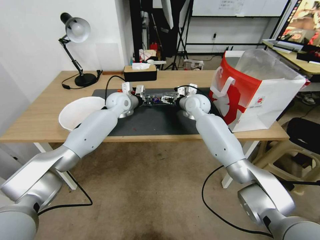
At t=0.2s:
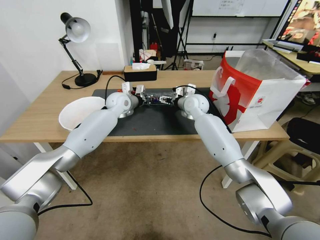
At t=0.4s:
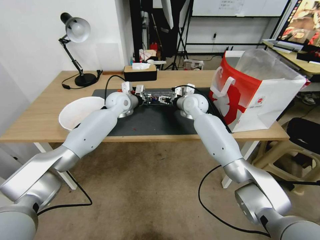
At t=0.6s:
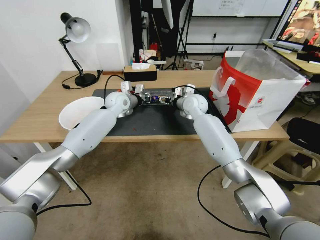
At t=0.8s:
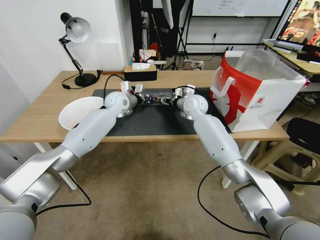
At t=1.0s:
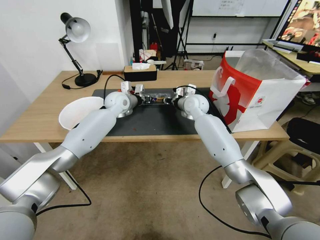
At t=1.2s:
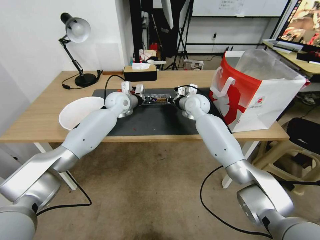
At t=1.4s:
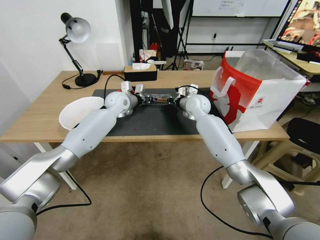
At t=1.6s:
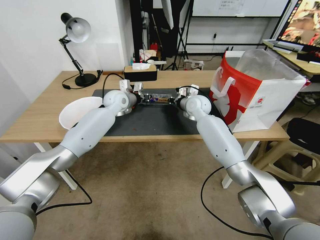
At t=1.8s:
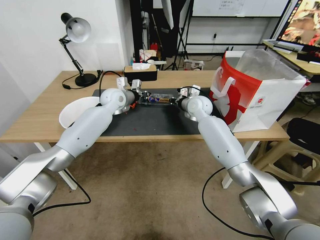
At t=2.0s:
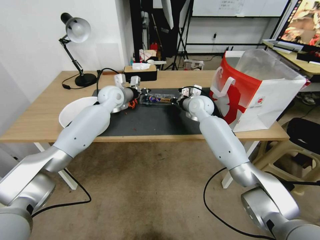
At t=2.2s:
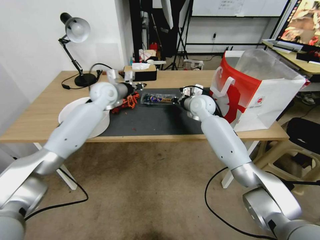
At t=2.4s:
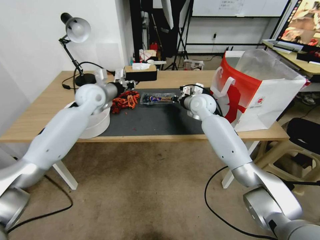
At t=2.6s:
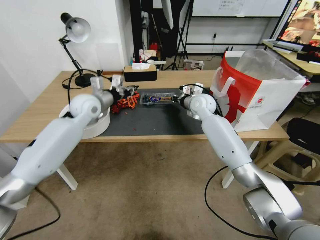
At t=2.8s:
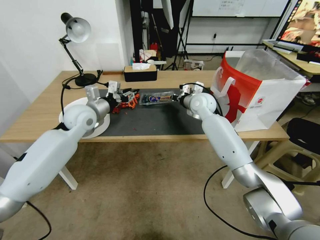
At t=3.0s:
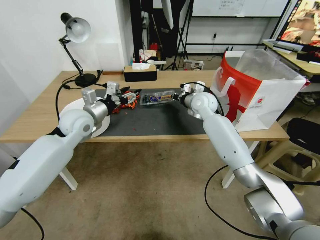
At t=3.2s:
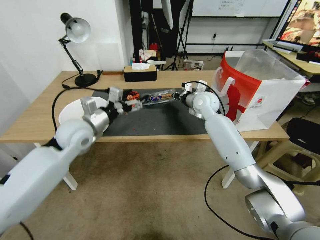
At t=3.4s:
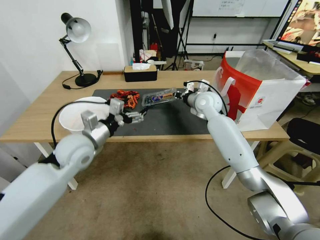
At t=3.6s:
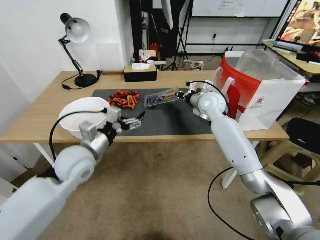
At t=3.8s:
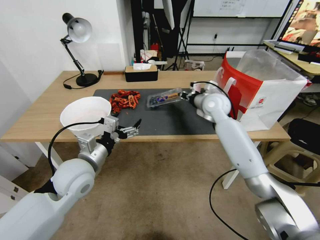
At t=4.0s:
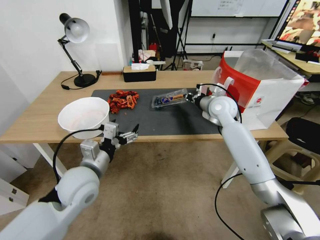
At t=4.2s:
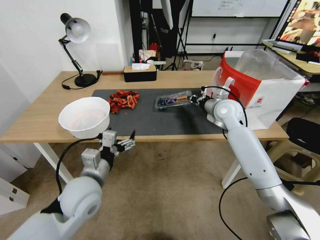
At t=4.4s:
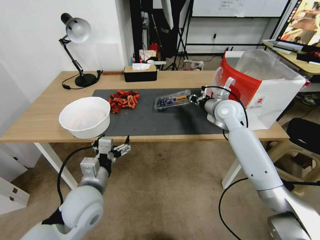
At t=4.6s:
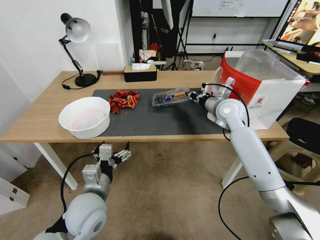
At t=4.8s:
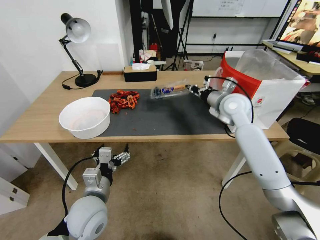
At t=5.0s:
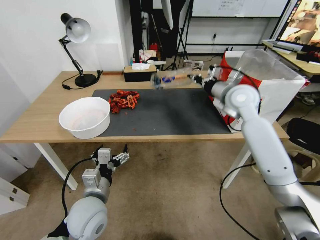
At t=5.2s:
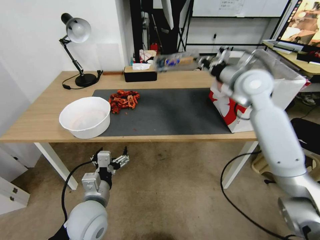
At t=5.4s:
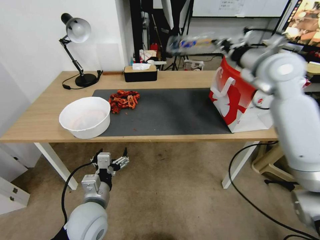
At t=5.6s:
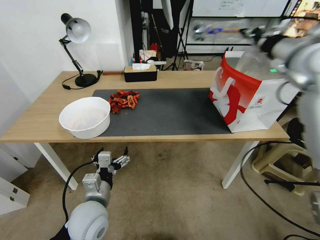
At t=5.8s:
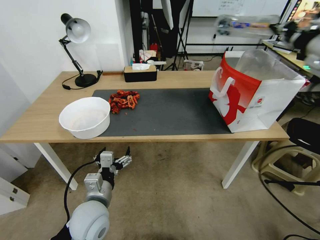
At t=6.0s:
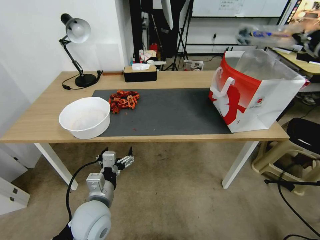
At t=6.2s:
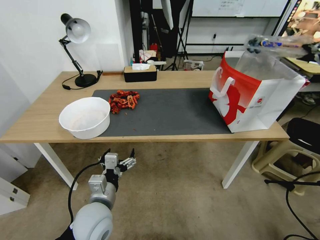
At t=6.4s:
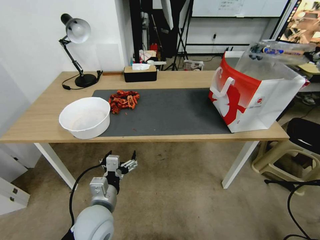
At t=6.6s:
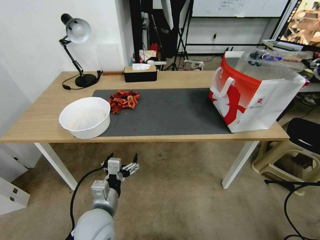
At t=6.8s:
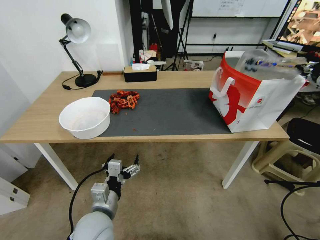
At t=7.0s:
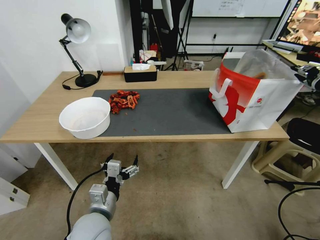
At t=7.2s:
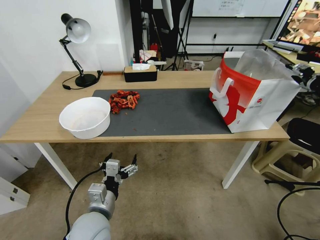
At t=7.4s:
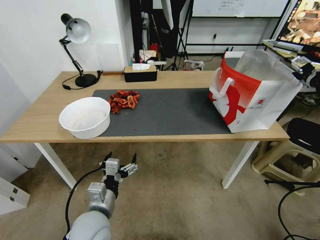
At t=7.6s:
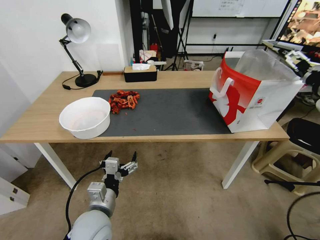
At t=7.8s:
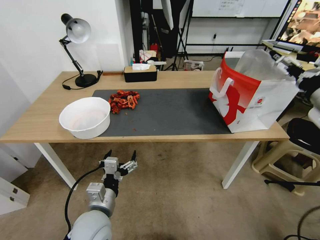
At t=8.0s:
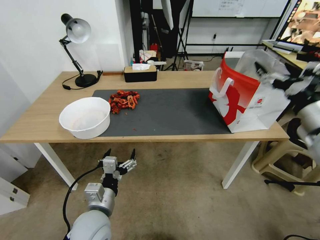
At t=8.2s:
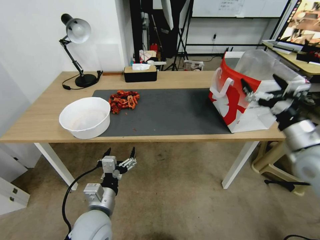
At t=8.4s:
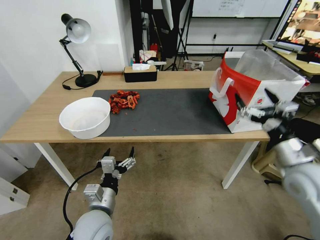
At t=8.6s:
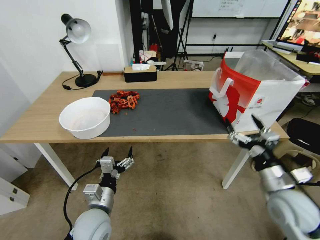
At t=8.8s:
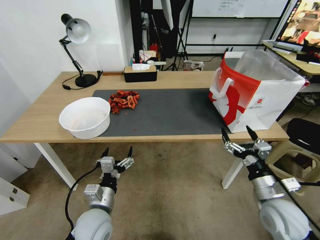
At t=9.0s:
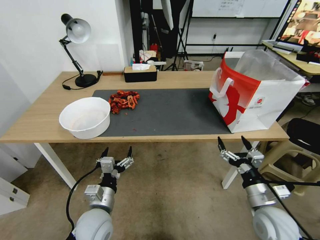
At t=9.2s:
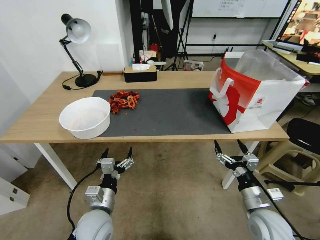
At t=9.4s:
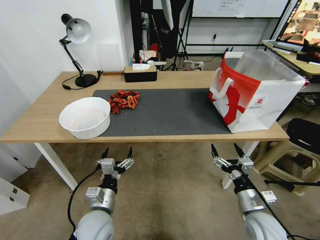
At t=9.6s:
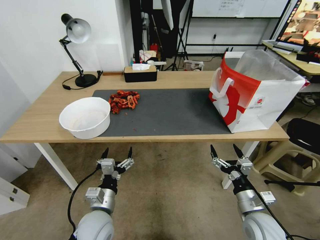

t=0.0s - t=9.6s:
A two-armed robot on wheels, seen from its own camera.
Task of the whole recording: Close the takeout container lid, then place the container into the takeout bag.
t=0.0s - t=1.6s: The right gripper closes.
t=1.6s - t=3.2s: The left gripper goes about 20 cm backward, and opens.
t=3.2s - t=4.8s: The right gripper is displaced to the right and backward by about 10 cm, while the left gripper goes about 20 cm backward and downward.
t=4.8s - t=6.4s: The right gripper heads to the right, upward and backward, covering about 30 cm.
t=6.4s - t=8.0s: The right gripper goes approximately 15 cm to the left, downward and backward, and opens.
t=8.0s - t=9.6s: The right gripper moves downward, roughly 30 cm.

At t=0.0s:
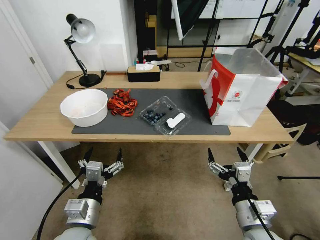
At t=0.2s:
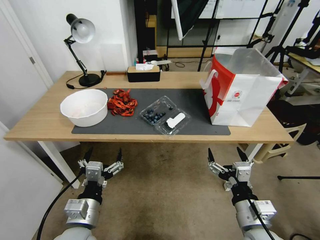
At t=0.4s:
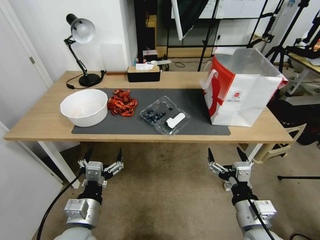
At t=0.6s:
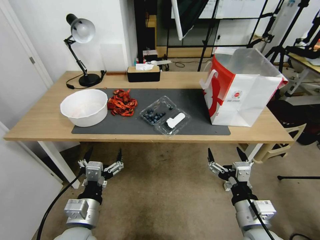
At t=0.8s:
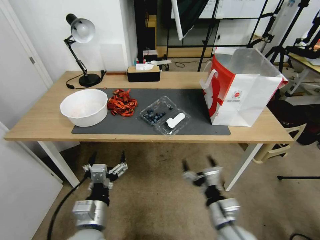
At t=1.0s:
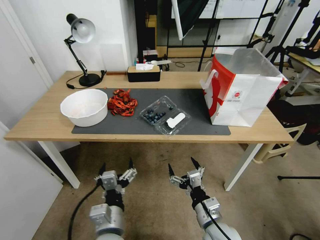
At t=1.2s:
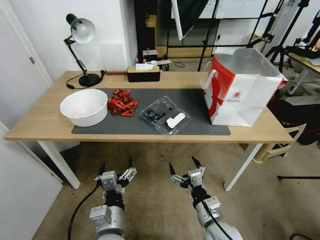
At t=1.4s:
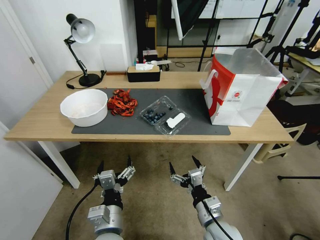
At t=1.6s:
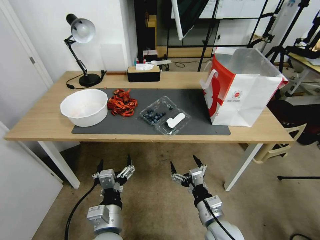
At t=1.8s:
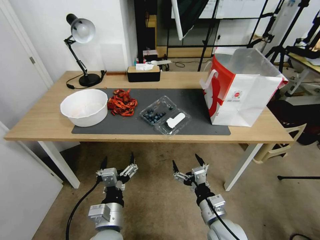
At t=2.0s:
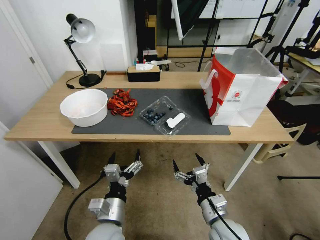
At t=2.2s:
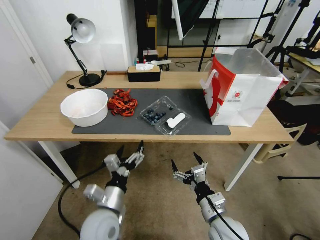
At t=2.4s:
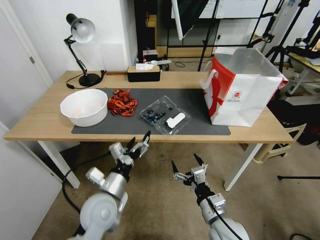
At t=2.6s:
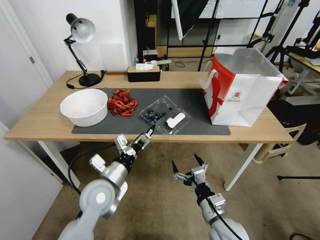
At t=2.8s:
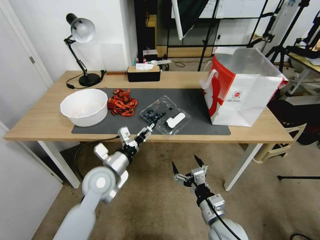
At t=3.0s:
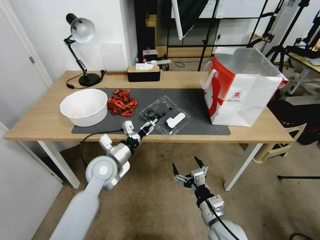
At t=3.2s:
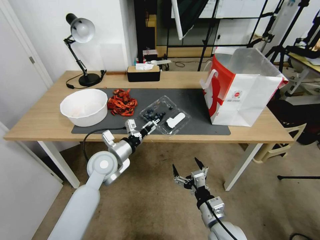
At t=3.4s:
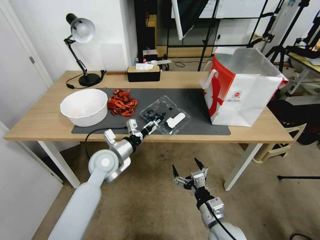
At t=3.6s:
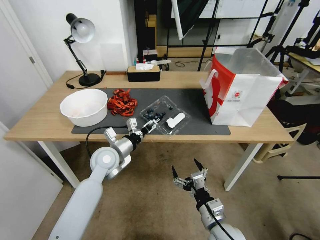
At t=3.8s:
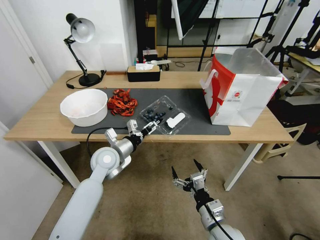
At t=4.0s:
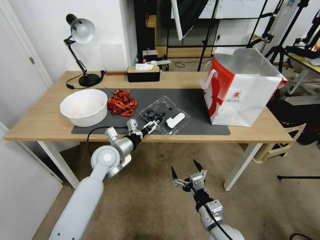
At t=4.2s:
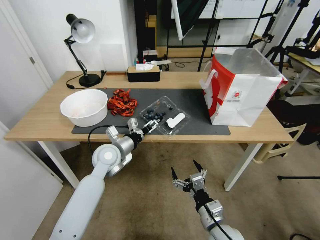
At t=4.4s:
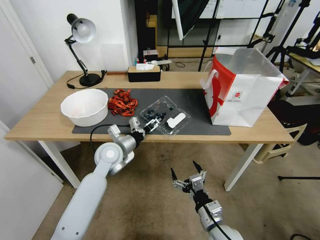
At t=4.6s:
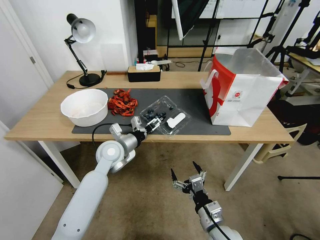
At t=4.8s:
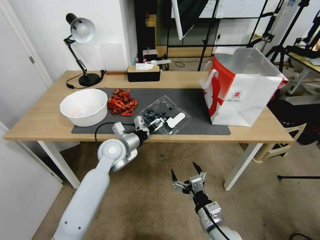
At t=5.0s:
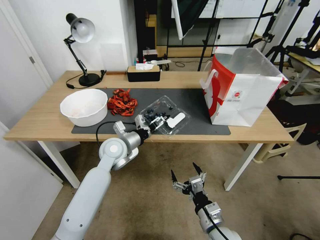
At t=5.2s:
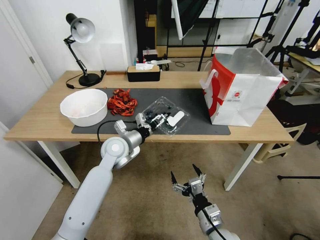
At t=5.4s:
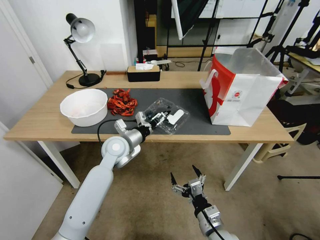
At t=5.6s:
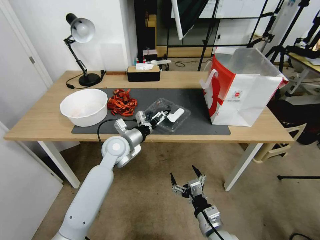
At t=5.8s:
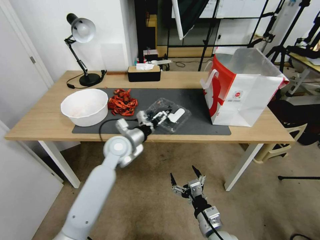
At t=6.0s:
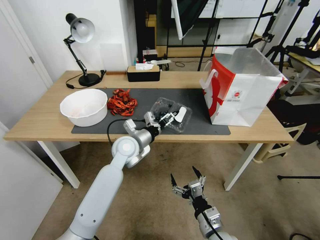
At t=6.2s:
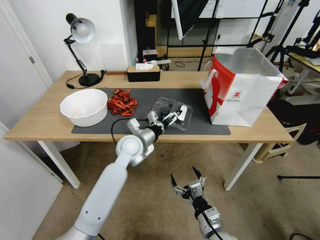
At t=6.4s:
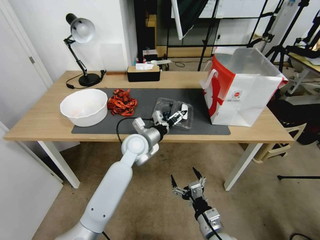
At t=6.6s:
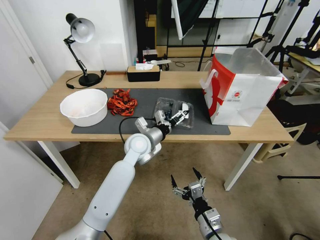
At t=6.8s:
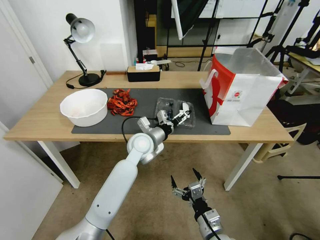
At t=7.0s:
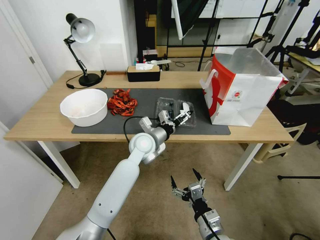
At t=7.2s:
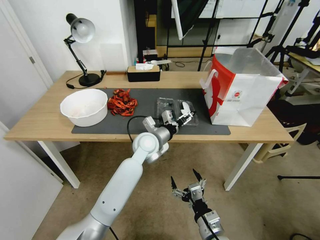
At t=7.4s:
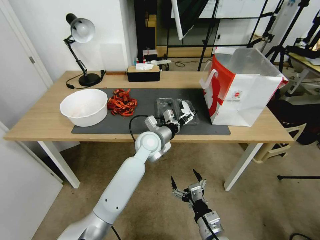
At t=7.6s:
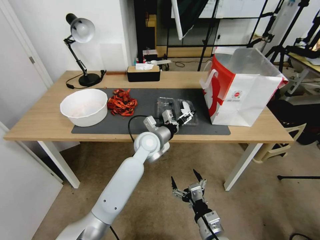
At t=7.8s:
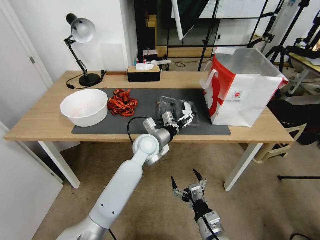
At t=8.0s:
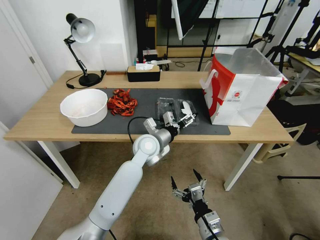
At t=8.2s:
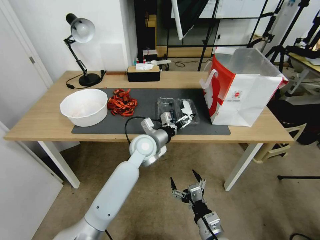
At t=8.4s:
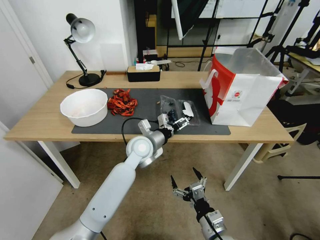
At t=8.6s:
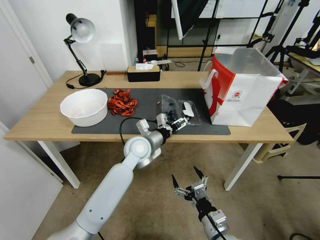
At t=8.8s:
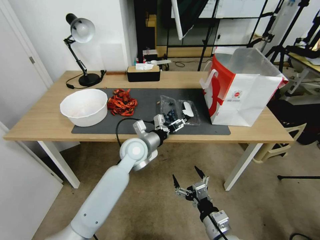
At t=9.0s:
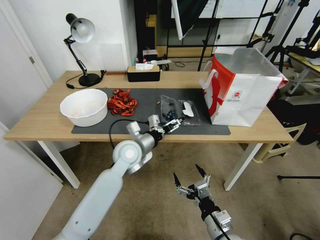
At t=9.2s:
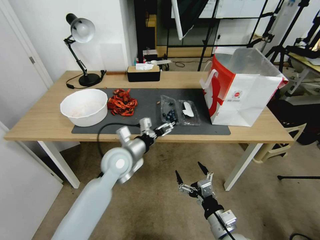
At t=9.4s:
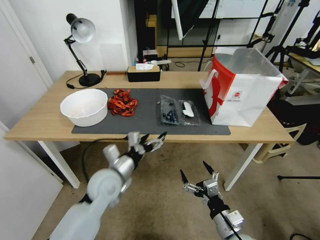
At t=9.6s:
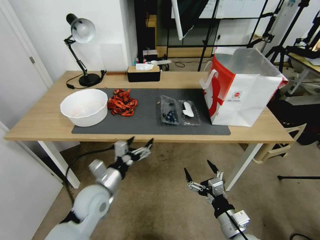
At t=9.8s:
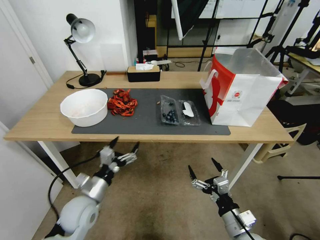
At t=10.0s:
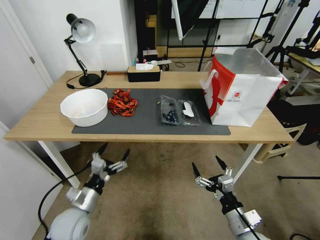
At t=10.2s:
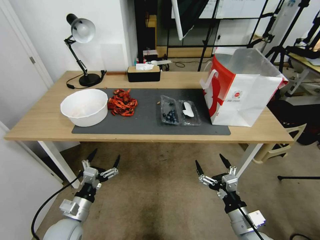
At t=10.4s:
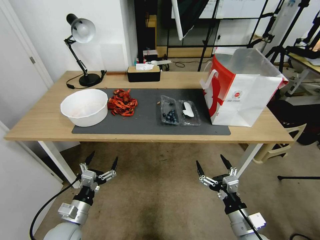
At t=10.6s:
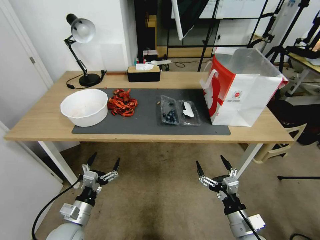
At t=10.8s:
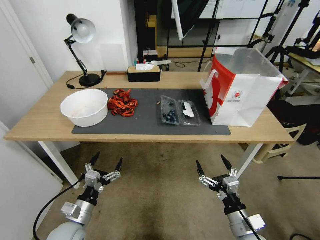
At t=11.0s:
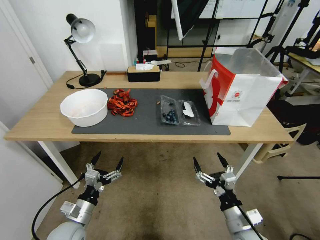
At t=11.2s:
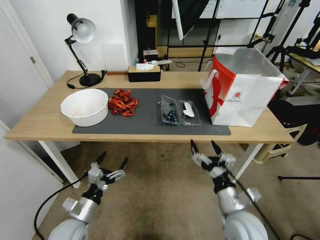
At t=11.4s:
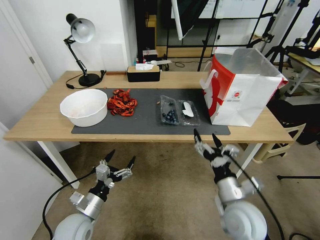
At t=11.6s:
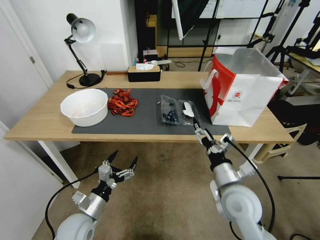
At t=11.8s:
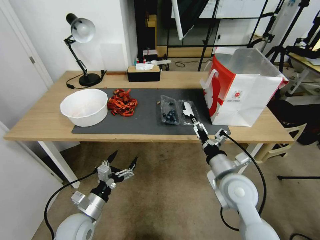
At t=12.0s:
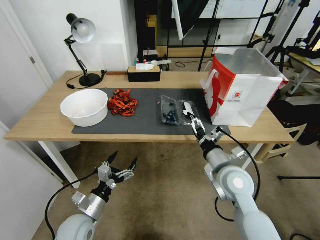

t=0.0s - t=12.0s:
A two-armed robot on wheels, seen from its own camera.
Task of the whole recording: Close the takeout container lid, then place the container into the takeout bag.
t=1.6s - t=3.0s: The left gripper shifts about 20 cm forward.
t=3.0s - t=4.4s: The left gripper shifts about 5 cm forward.
t=4.4s - t=6.0s: The left gripper shifts some 5 cm to the right.
t=6.0s - t=7.6s: The left gripper moves to the right, roughly 5 cm.
t=7.6s - t=9.0s: The left gripper shifts some 5 cm to the left.
t=9.0s - t=10.4s: The left gripper goes roughly 30 cm backward, to the left and downward. The right gripper travels to the right by some 5 cm.
t=10.4s - t=12.0s: The right gripper travels forward, upward and to the left by approximately 20 cm.
